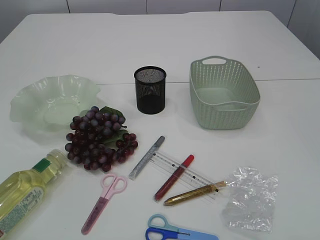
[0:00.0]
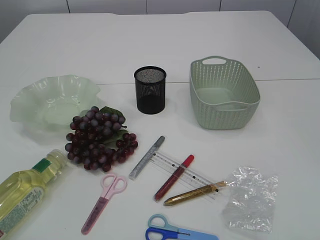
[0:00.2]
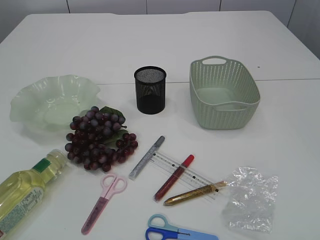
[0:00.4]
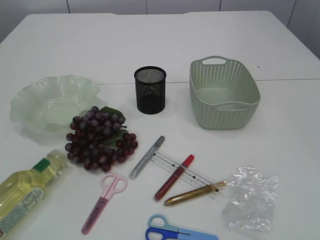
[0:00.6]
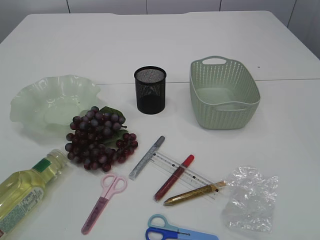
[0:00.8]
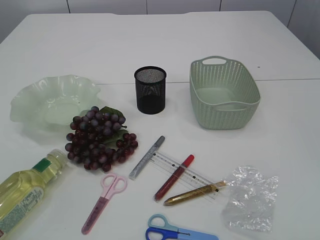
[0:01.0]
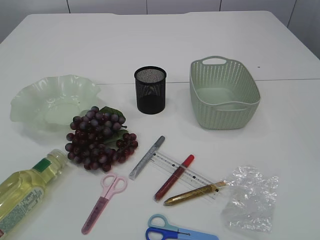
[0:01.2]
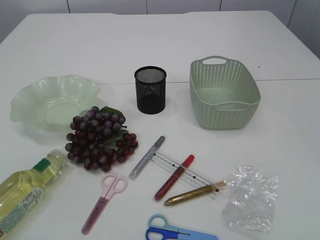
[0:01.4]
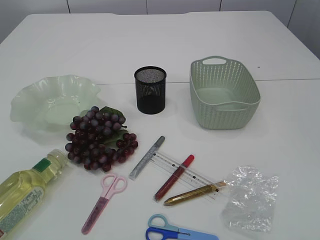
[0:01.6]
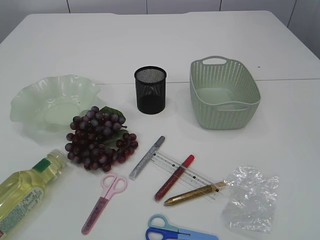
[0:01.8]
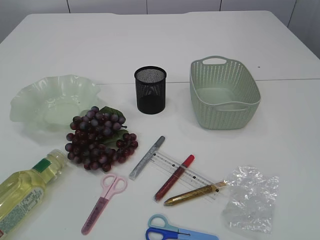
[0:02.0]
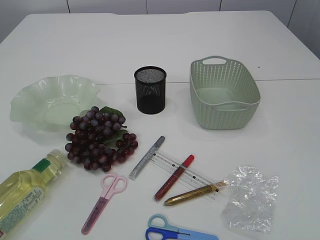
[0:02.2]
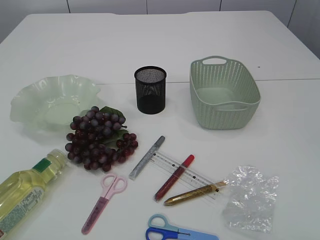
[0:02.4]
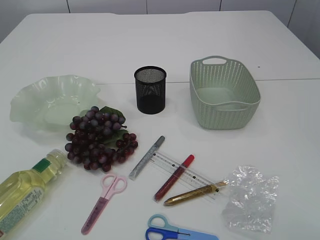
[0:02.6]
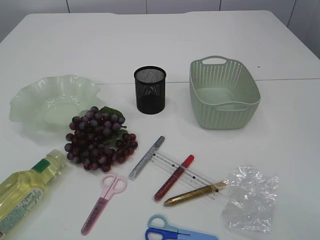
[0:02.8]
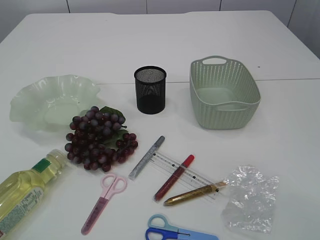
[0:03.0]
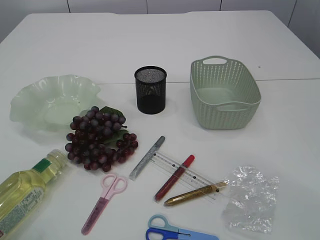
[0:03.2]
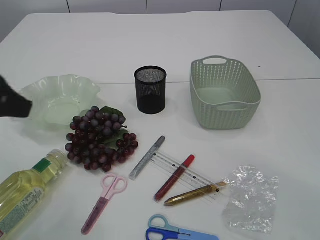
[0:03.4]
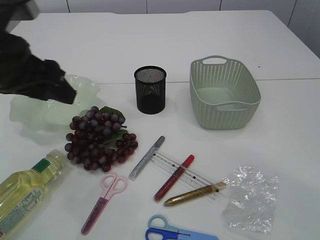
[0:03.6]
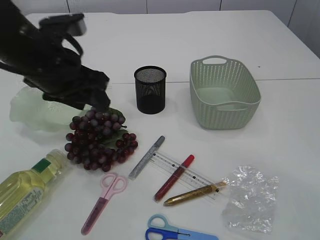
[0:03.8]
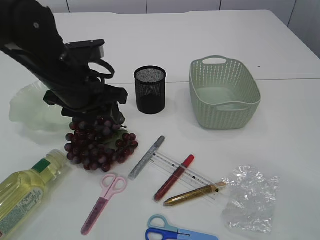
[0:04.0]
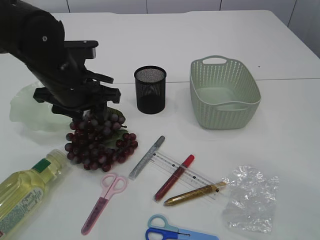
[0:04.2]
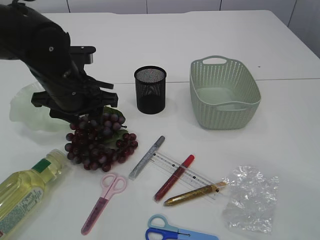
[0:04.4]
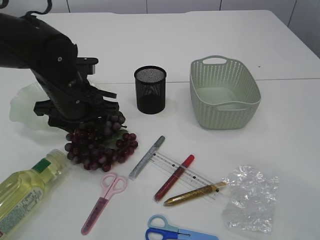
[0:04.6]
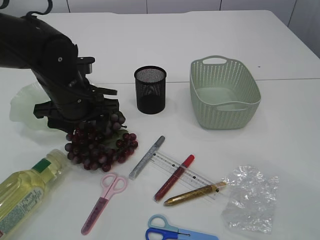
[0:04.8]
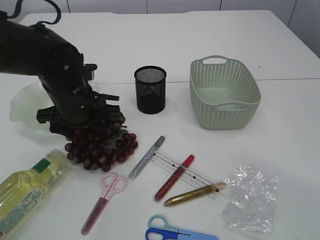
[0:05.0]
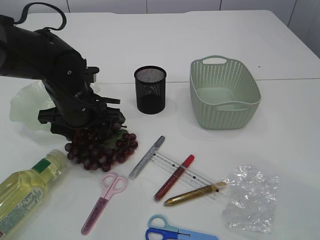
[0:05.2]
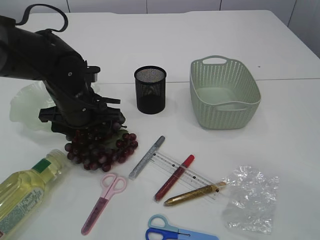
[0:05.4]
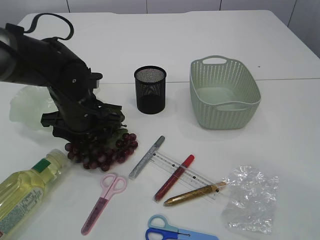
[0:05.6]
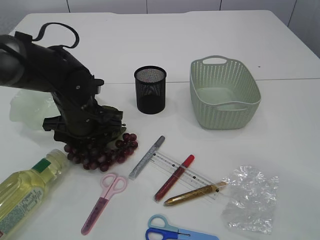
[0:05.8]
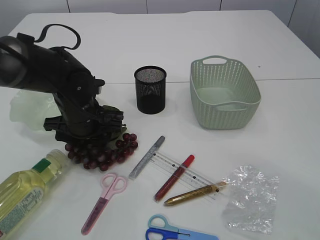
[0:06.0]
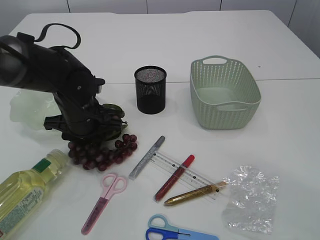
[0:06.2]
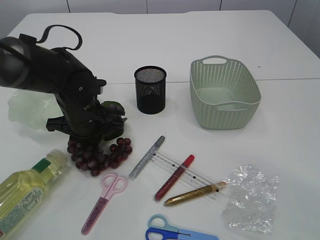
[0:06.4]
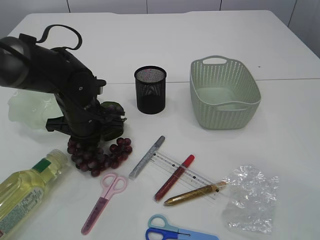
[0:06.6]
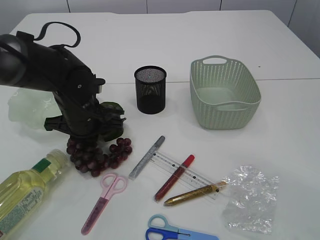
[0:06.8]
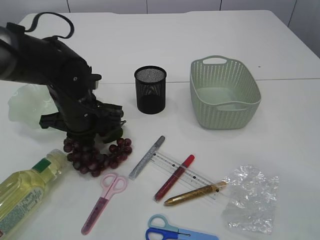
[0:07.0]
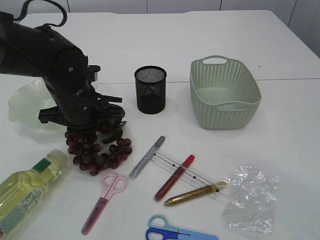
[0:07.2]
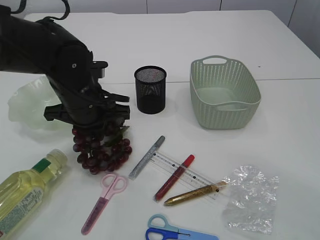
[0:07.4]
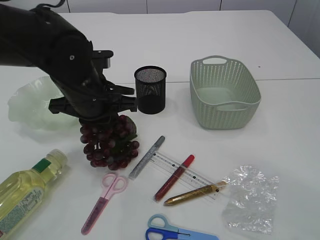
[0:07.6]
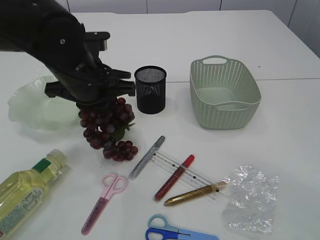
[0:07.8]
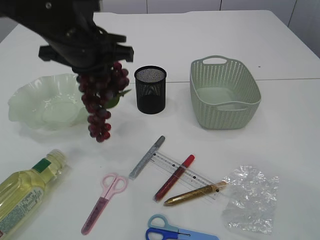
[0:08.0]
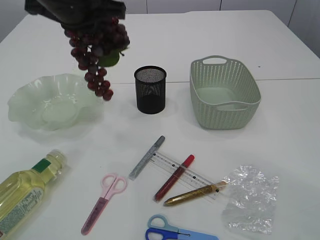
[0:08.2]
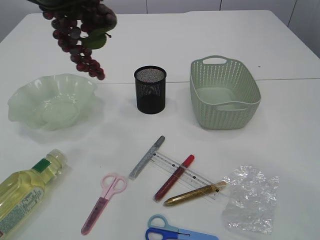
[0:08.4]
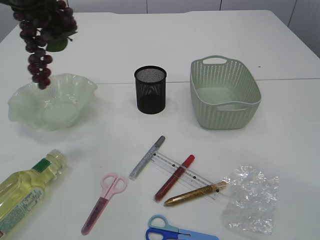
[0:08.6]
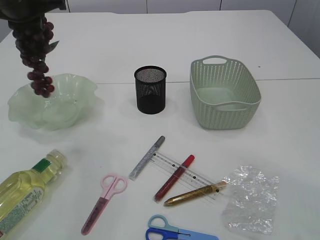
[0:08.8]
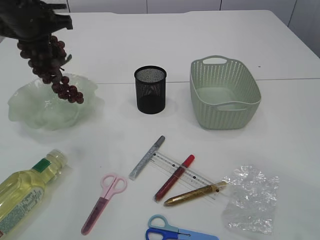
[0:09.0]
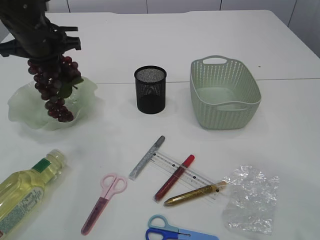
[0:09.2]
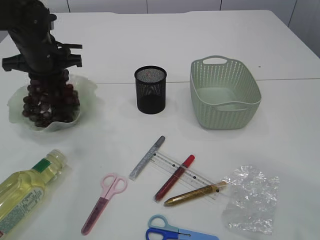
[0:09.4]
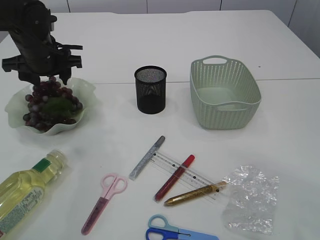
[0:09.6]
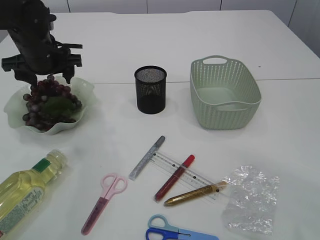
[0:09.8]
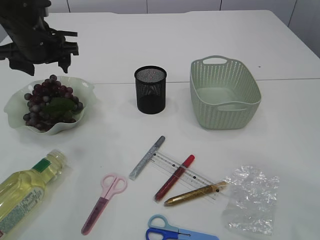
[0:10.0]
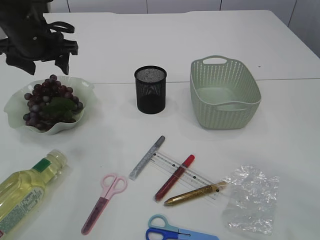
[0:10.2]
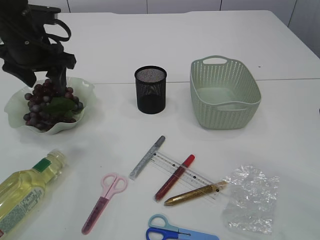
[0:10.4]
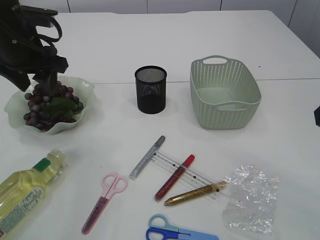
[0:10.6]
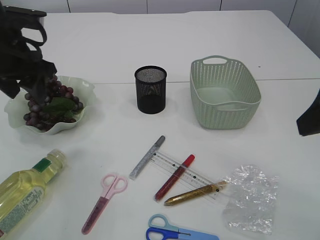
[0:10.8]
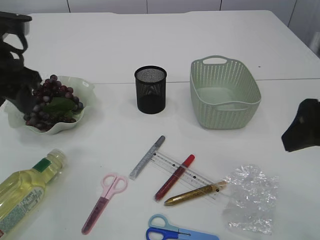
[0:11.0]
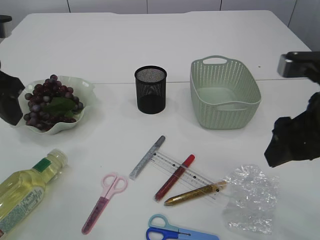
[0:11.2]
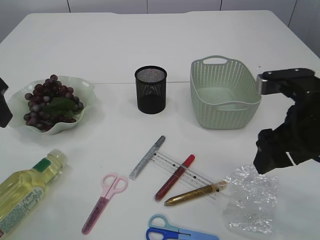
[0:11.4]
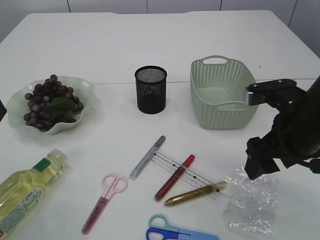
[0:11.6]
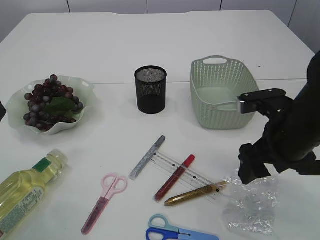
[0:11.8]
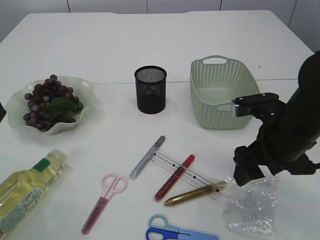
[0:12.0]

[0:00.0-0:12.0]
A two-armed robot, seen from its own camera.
Step, 0:00.0 to 0:08.0: Pick up the grapes.
Step, 0:08.2 to 0:10.2: Place the grapes in the plate.
0:03.0 to 0:04.4: The left gripper is displaced forward, to the right and downward by some 30 cm.
0:04.4 to 0:06.0: The left gripper is displaced downward by approximately 5 cm.
0:06.0 to 0:07.6: The left gripper moves upward, approximately 5 cm, and closes its fingers.
0:07.6 to 0:09.0: The left gripper moves to the left, forward and upward, roughly 15 cm.
0:09.0 to 0:10.4: The left gripper opens its fingers.
0:10.4 to 0:12.0: The right gripper travels downward, forward and to the left by some 20 cm. Meanwhile the left gripper moves backward, roughly 15 cm.

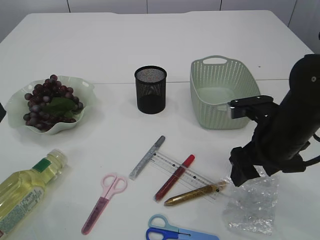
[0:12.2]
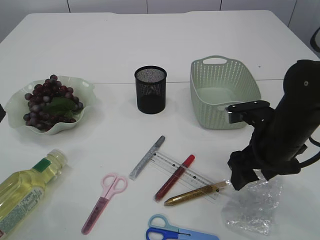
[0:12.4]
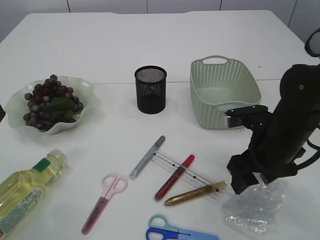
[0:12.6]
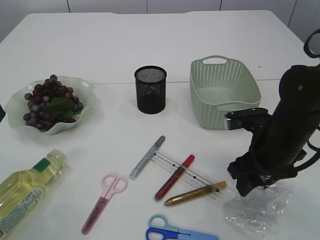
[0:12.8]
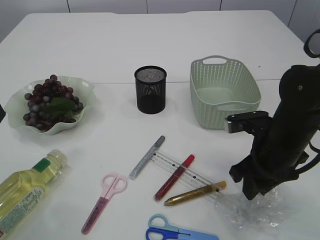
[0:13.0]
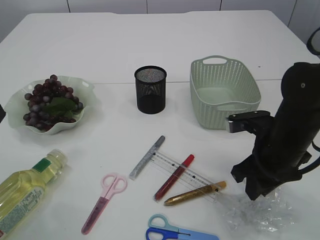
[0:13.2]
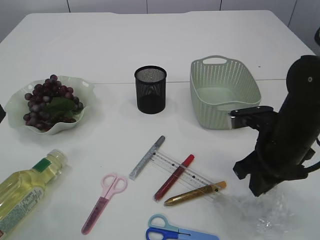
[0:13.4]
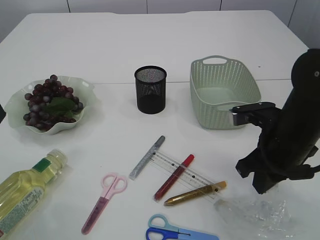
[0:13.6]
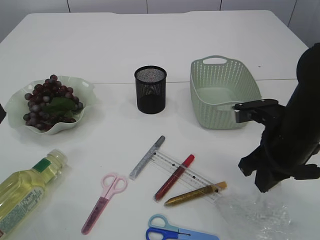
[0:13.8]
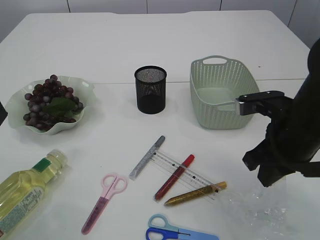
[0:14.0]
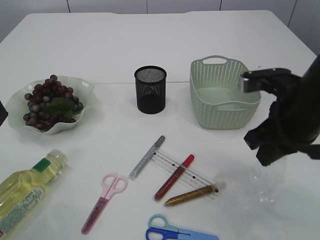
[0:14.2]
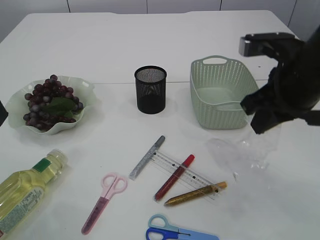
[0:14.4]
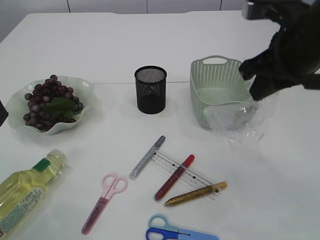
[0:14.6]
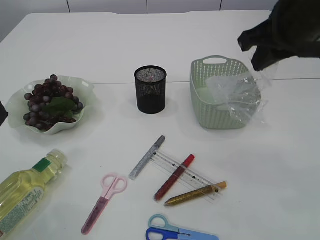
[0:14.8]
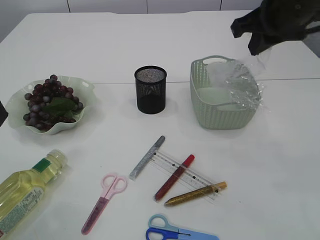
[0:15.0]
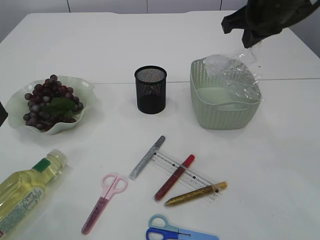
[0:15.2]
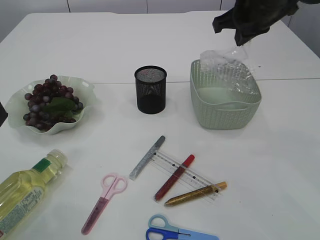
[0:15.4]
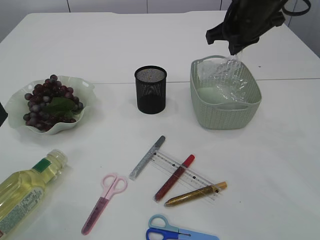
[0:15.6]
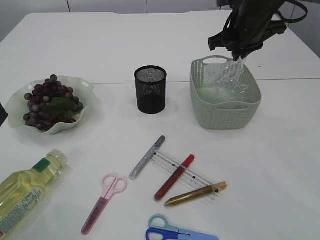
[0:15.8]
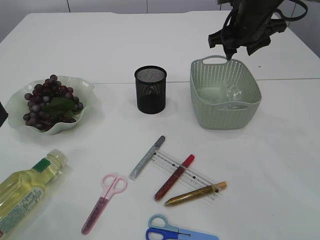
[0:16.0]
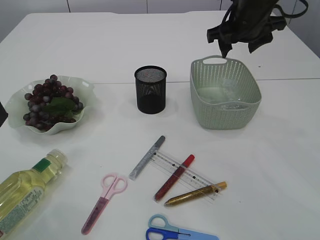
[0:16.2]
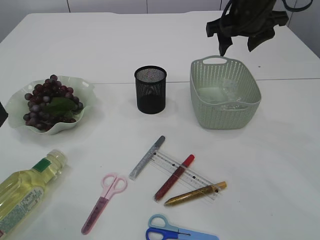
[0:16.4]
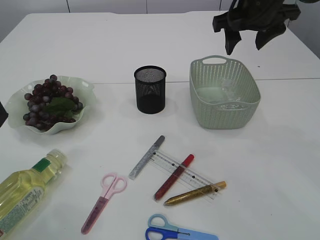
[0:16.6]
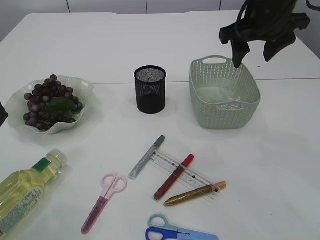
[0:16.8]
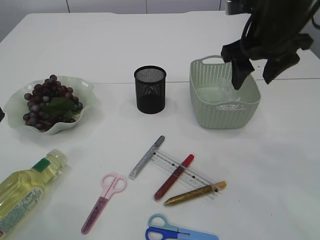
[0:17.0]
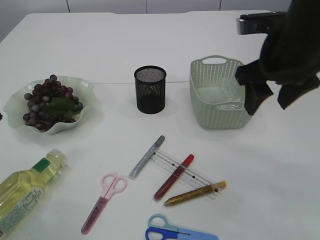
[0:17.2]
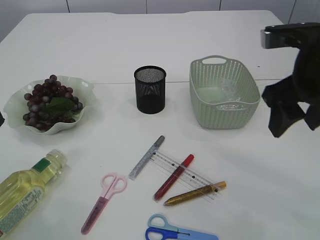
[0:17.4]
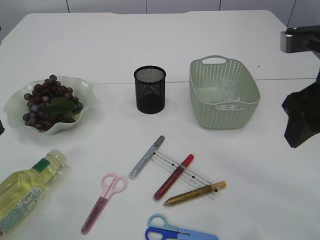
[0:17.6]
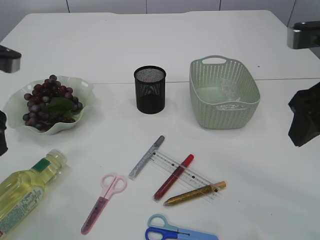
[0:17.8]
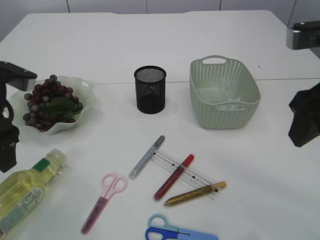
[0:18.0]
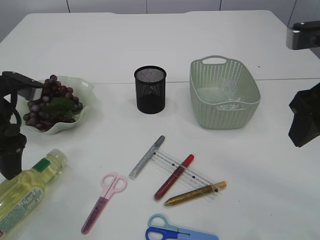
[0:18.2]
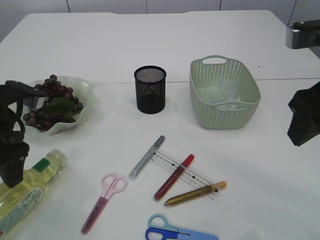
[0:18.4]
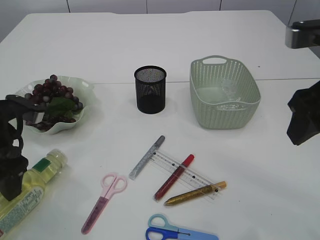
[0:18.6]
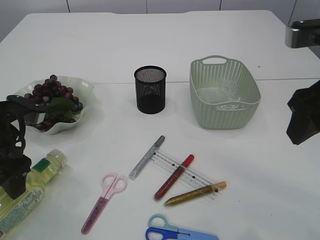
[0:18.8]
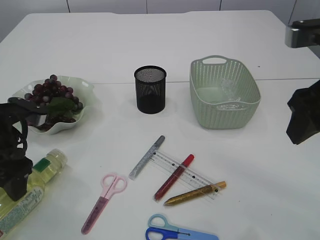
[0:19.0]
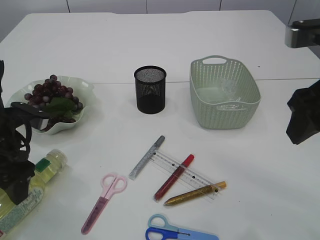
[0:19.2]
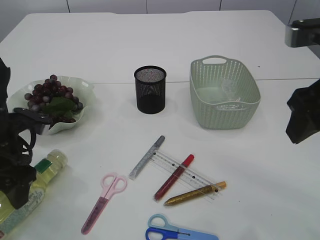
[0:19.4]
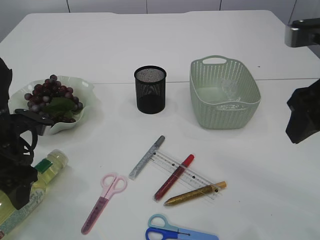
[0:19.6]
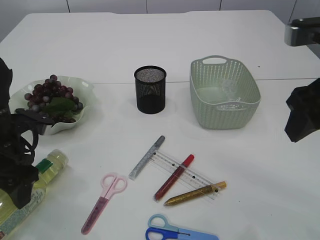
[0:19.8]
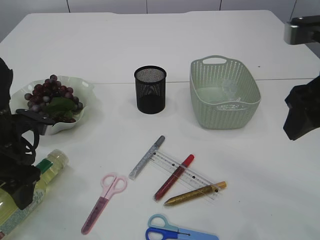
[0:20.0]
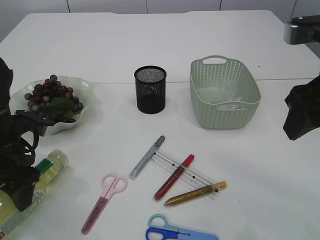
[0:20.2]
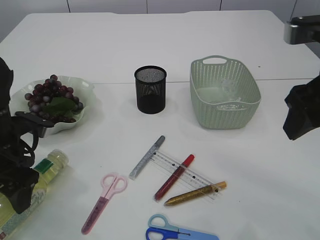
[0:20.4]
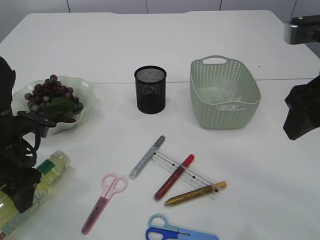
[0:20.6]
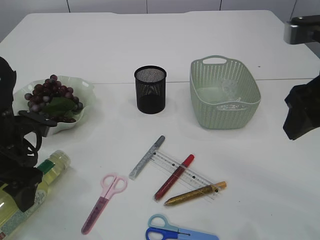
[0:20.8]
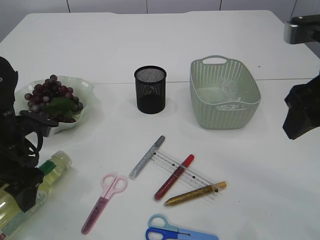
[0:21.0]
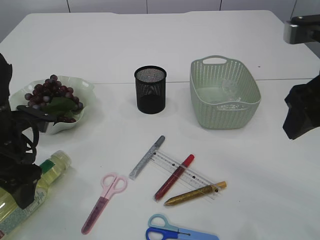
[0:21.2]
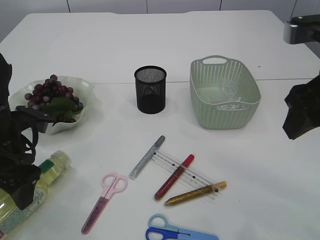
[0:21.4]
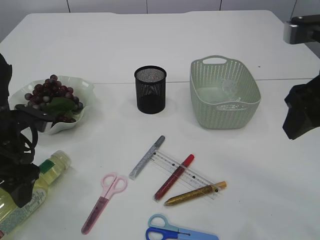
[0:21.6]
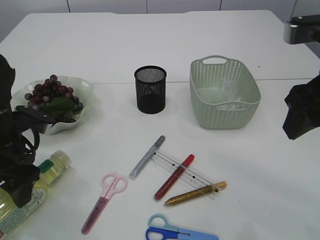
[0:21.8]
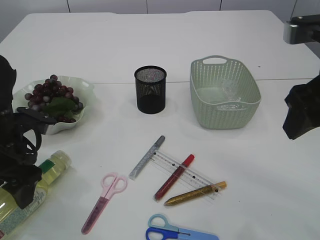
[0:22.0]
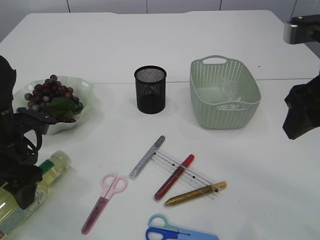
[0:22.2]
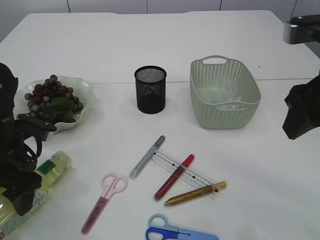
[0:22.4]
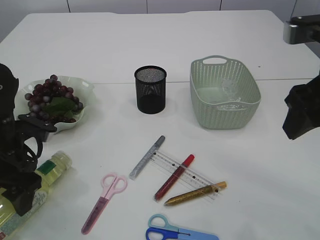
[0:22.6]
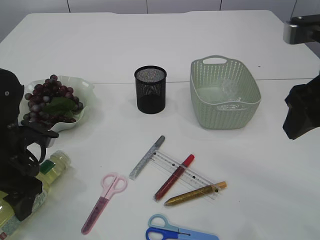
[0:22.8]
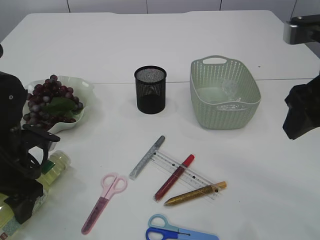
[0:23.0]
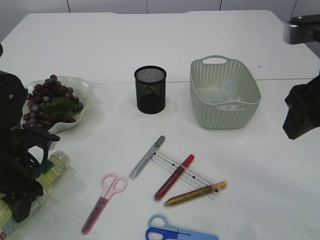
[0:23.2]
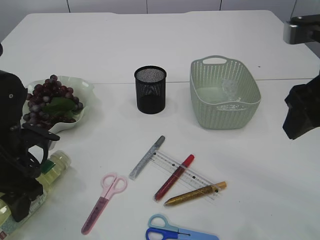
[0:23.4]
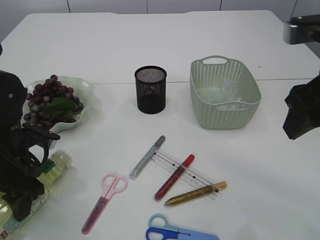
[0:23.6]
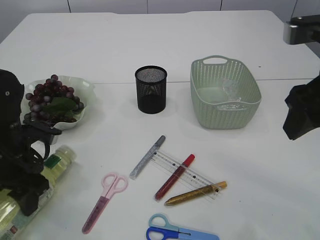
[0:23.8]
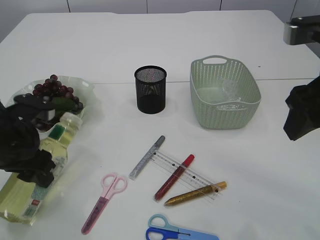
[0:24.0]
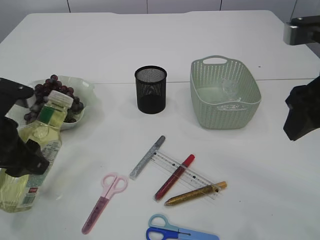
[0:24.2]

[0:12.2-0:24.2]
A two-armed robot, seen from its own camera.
Step, 0:12.2 to 0:14.6: Pick up the plastic.
Step, 0:14.8 to 0:16.6: Place the plastic in the basket.
0:12.2 to 0:13.8: The right gripper closes.
0:13.8 to 0:15.2: The right gripper shifts approximately 20 cm upward and forward.
0:15.2 to 0:16.6: The right gripper opens up.
0:16.6 to 0:18.2: The left gripper shifts approximately 10 cm downward. The right gripper heads backward, covering some 20 cm.
0:18.2 to 0:19.8: The left gripper shifts about 5 cm downward.
0:19.8 to 0:21.2: Both grippers stay about where they are.
0:21.2 to 0:22.6: The grippers move only a little.
0:22.6 to 0:24.2: The left gripper moves some 5 cm.
